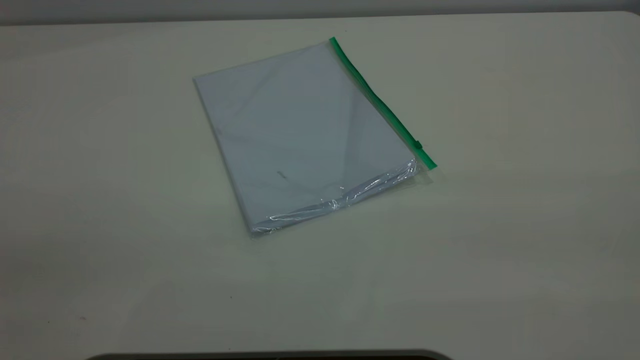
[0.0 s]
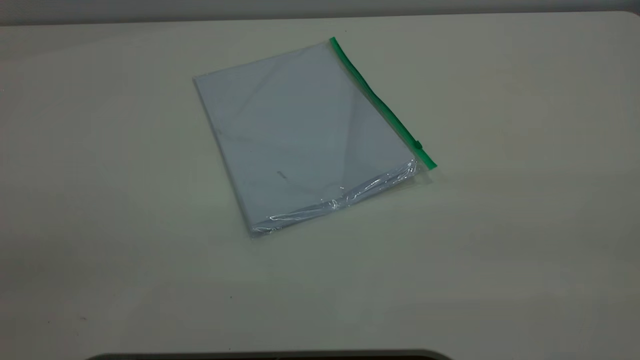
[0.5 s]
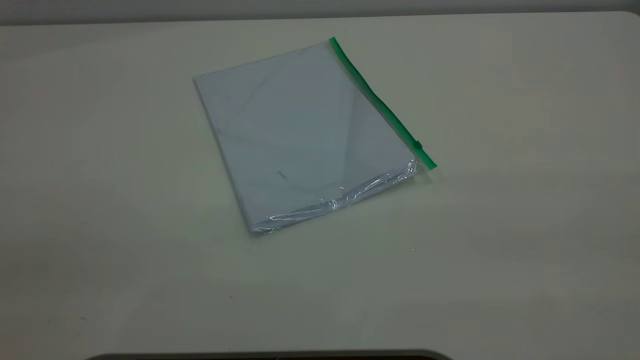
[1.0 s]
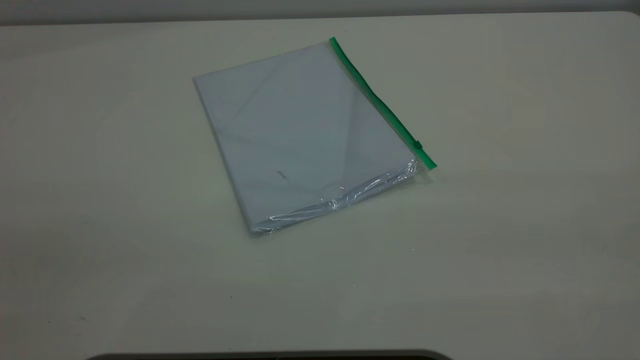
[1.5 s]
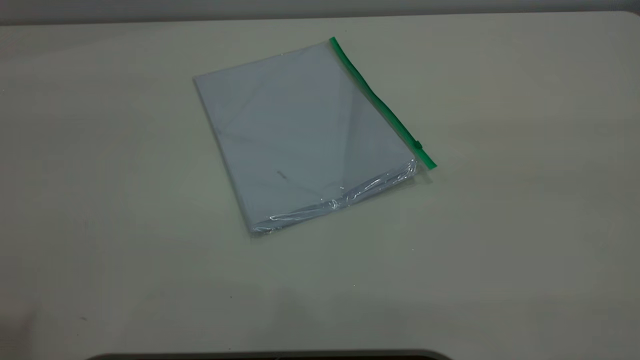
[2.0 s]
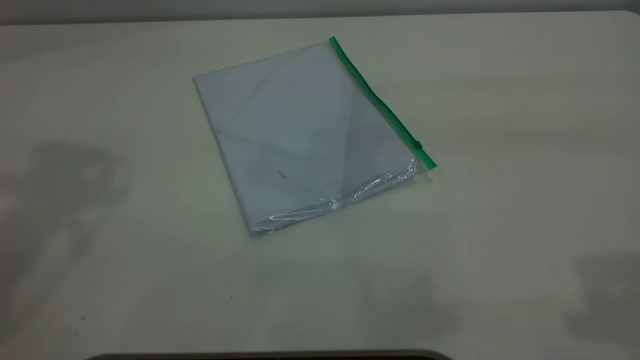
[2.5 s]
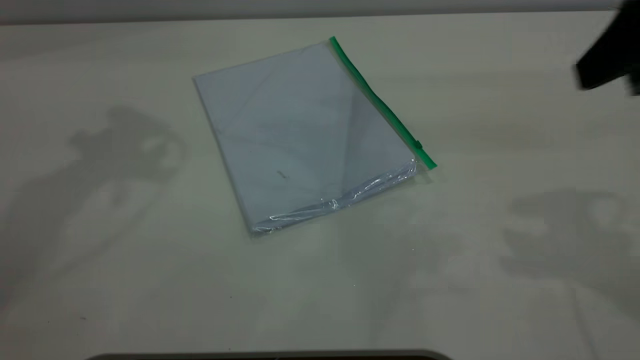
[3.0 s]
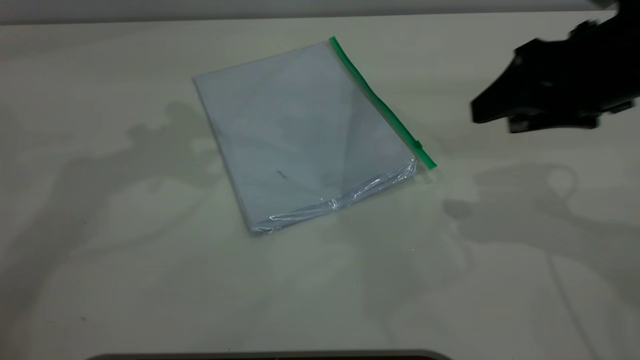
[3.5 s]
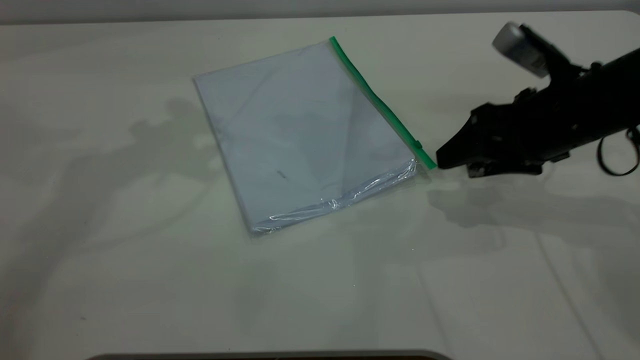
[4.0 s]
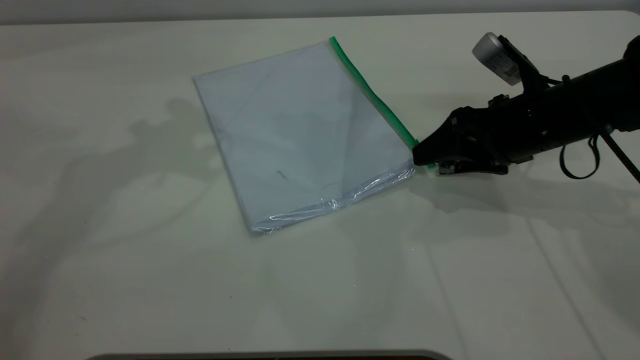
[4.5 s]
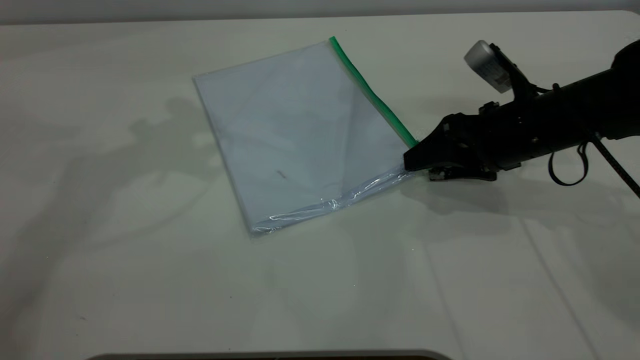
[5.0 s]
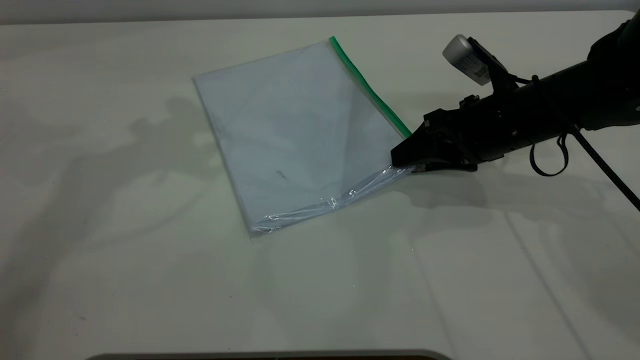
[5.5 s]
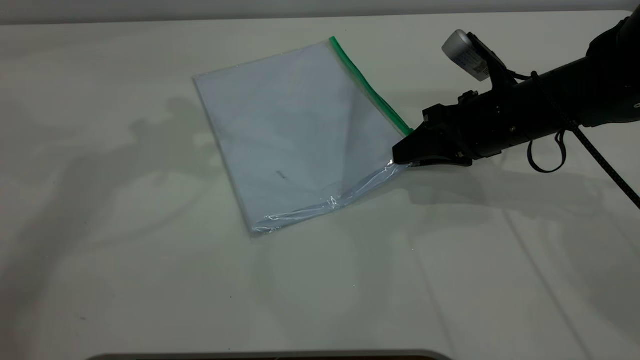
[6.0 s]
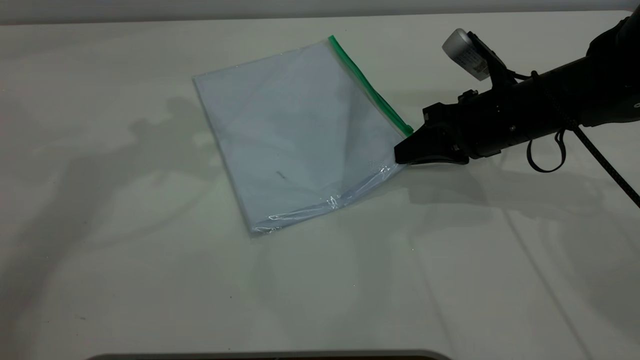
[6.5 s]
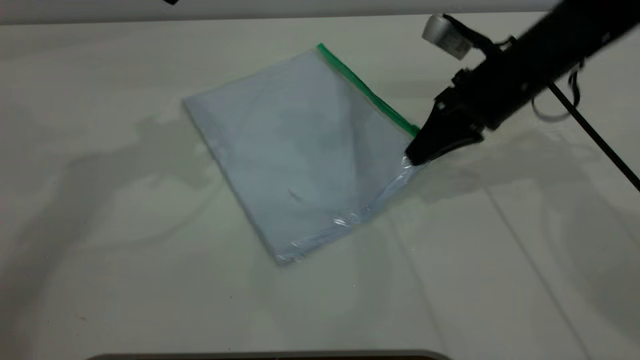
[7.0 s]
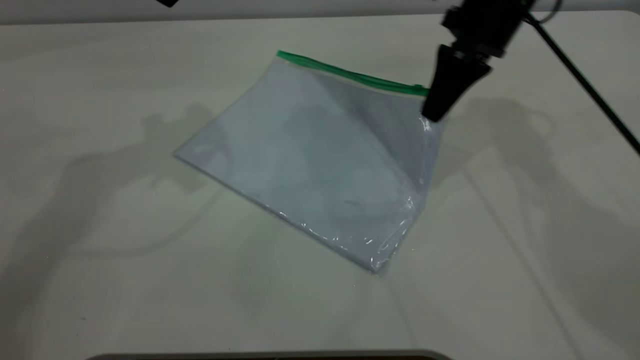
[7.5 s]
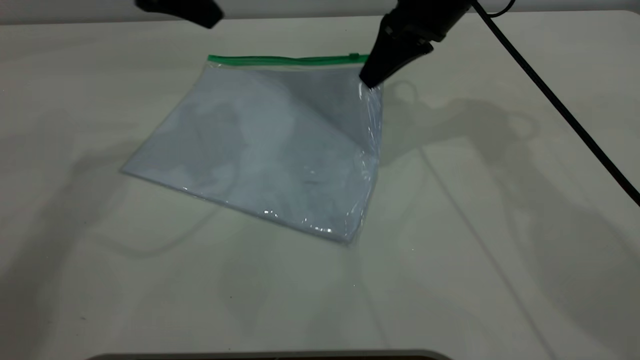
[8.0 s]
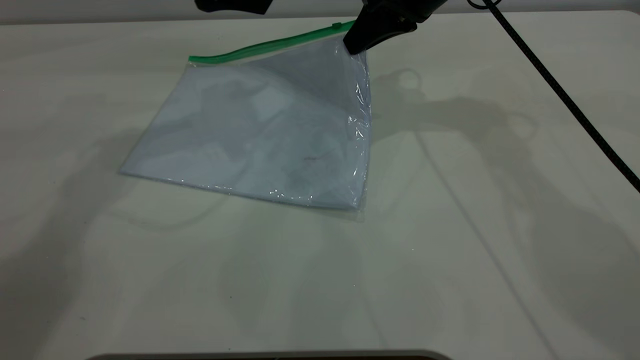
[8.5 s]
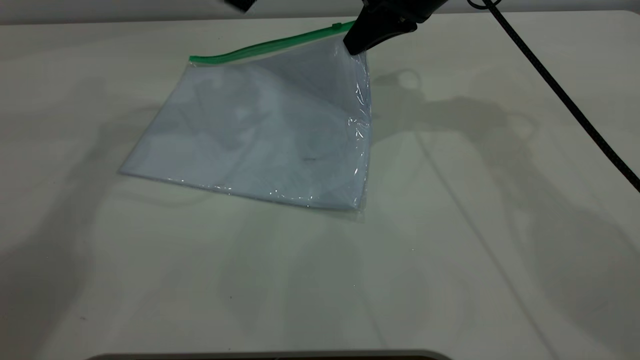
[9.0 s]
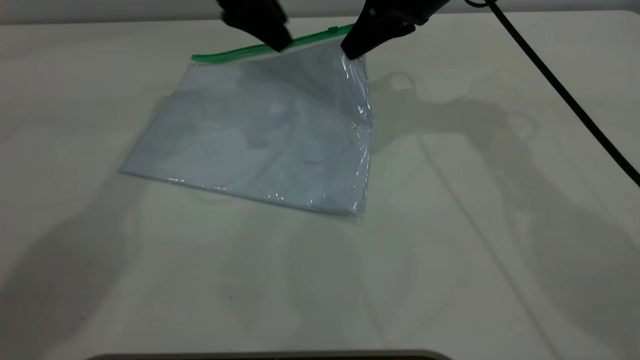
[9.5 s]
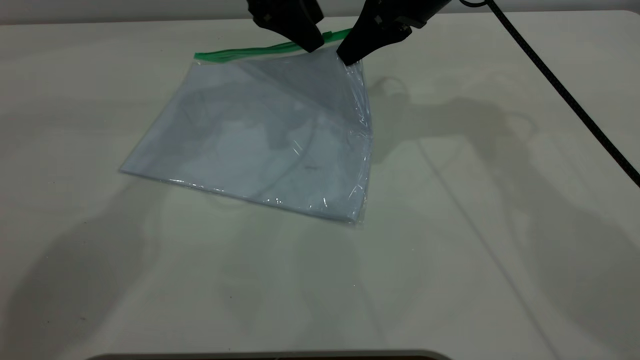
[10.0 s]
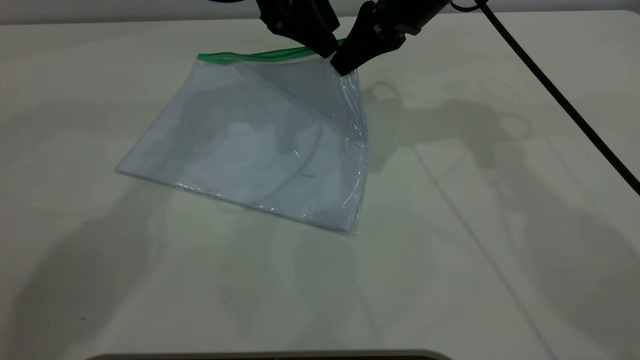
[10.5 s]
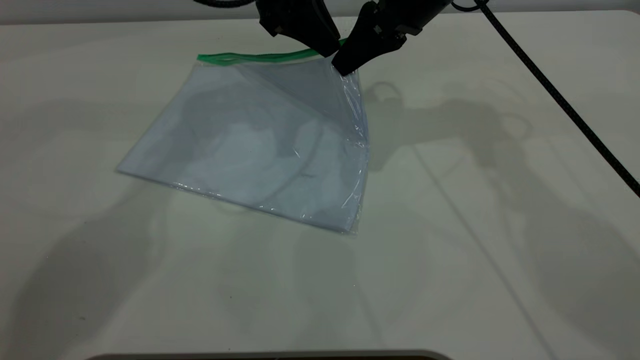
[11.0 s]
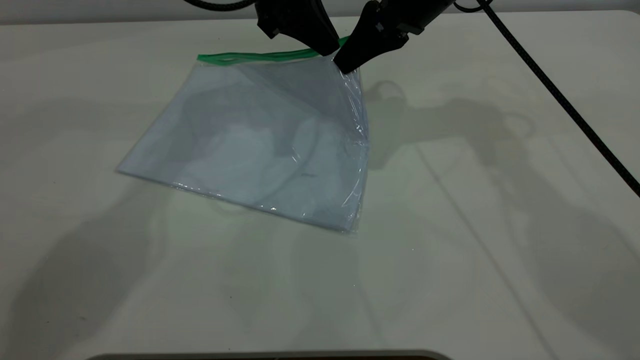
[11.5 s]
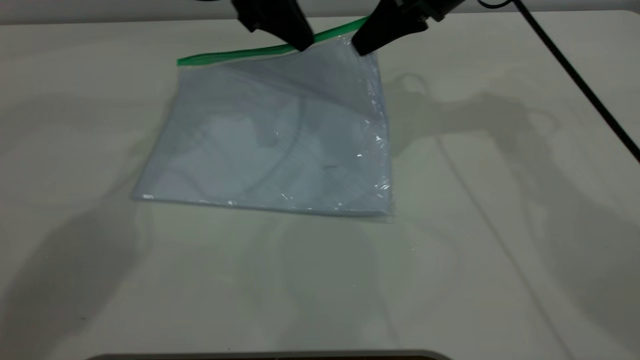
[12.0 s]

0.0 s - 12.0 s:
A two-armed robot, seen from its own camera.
Step, 0.0 s - 6.5 s: Pick up the transparent plastic bag with the right gripper.
2.0 s - 4.0 s: The right gripper travels downward and forward by roughly 40 cm.
4.0 s - 6.0 s: The right gripper ends up about 5 cm from where it was, and closes its fingers.
6.0 s - 8.0 s: The right gripper travels upward, forward and to the left by approximately 15 cm, and closes its fingers.
8.0 s - 10.0 s: The left gripper moves to the right and forward, some 15 cm.
10.0 s - 12.0 s: The left gripper closes up.

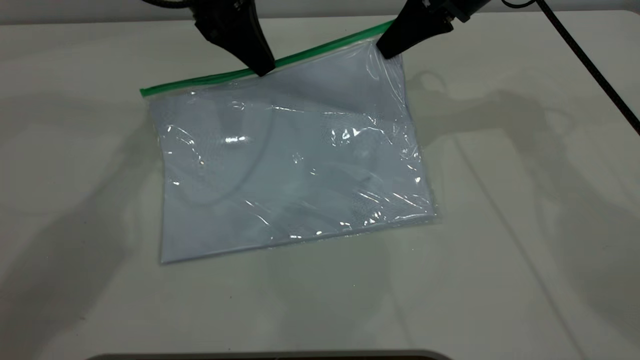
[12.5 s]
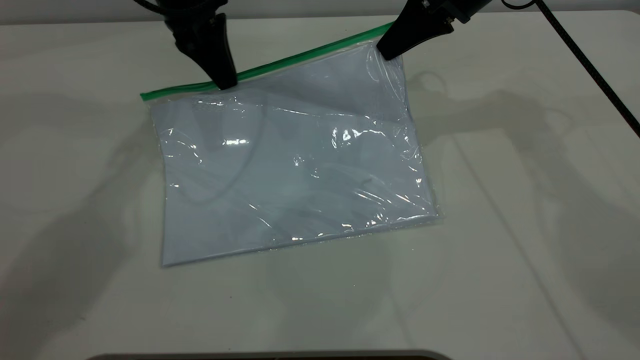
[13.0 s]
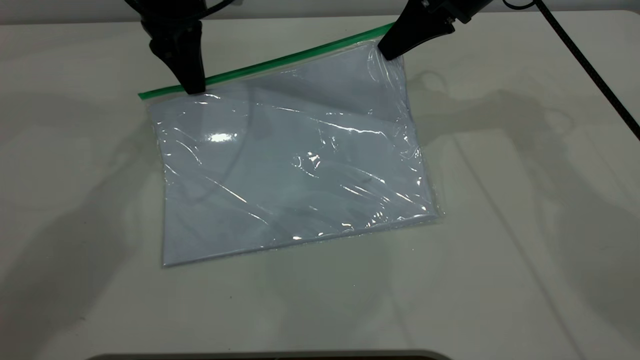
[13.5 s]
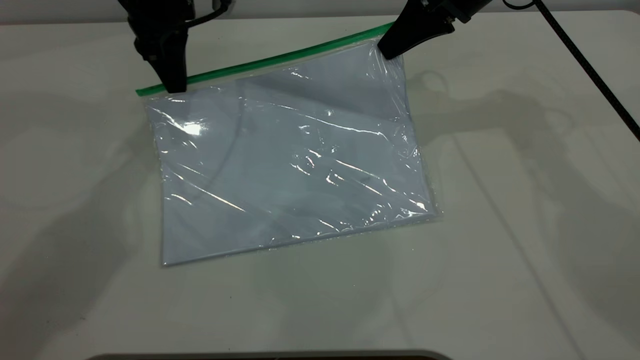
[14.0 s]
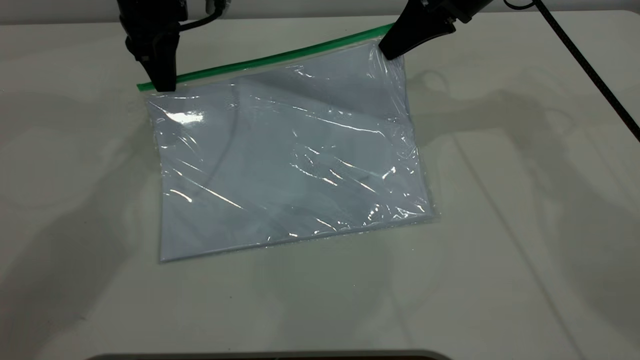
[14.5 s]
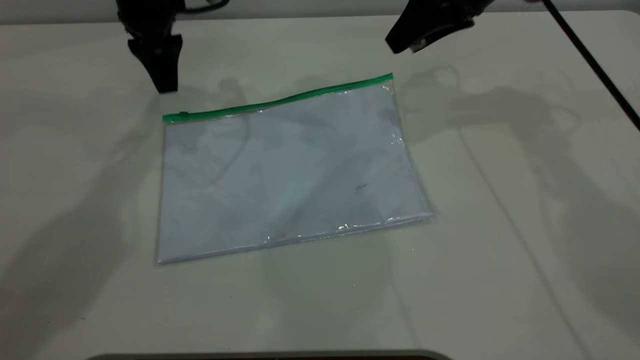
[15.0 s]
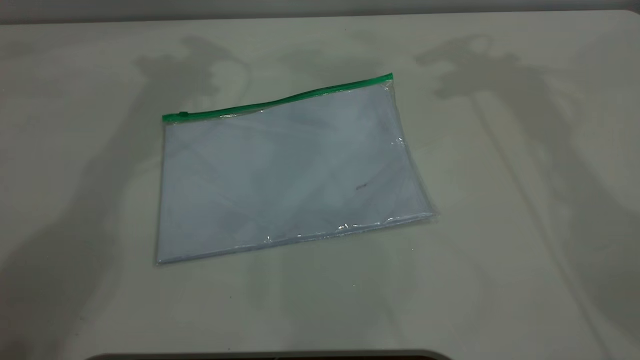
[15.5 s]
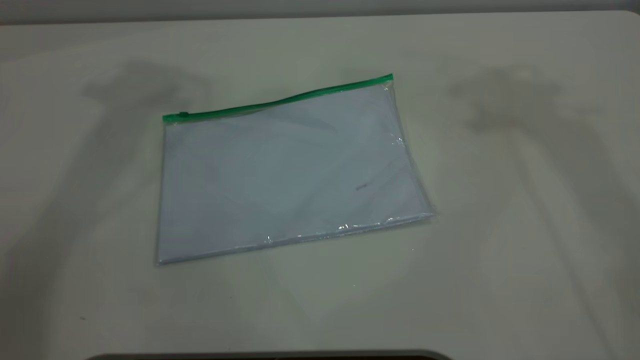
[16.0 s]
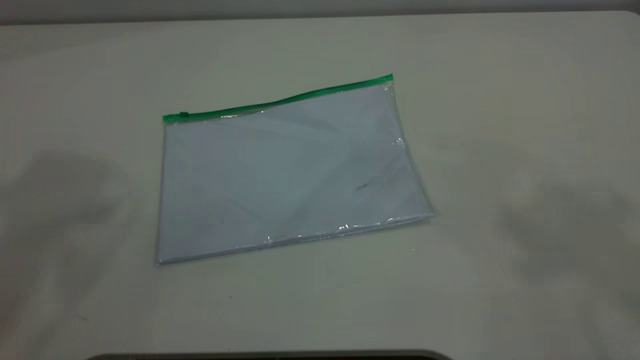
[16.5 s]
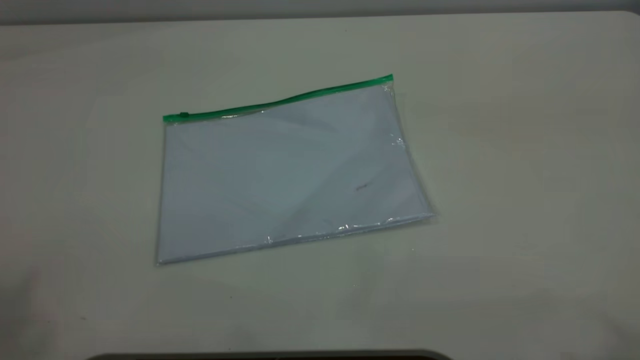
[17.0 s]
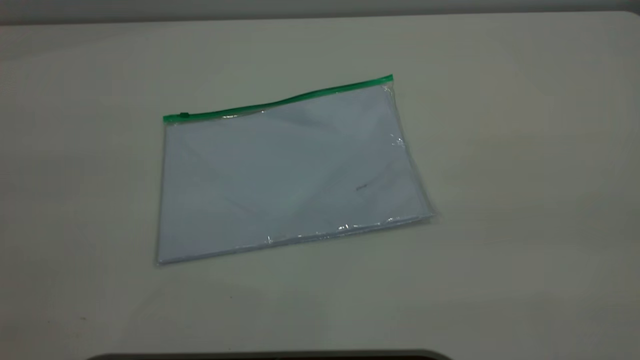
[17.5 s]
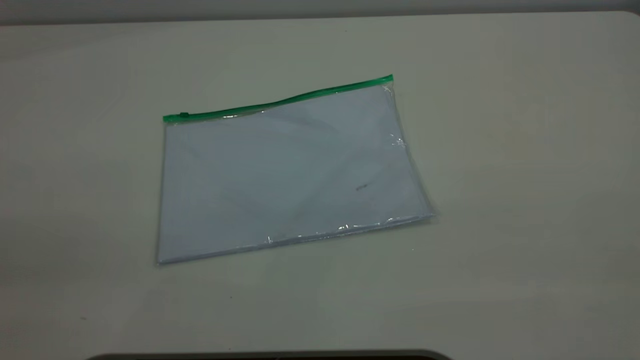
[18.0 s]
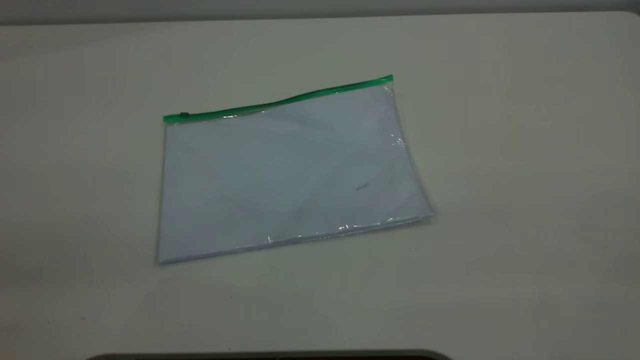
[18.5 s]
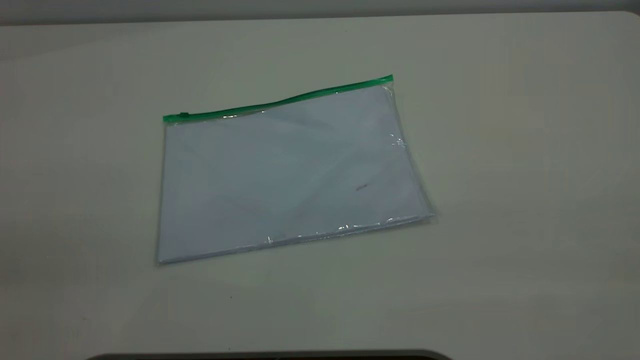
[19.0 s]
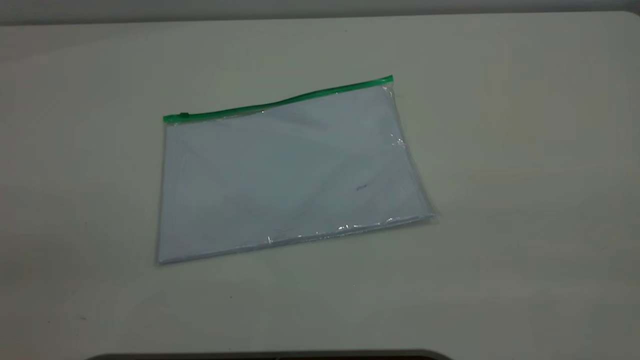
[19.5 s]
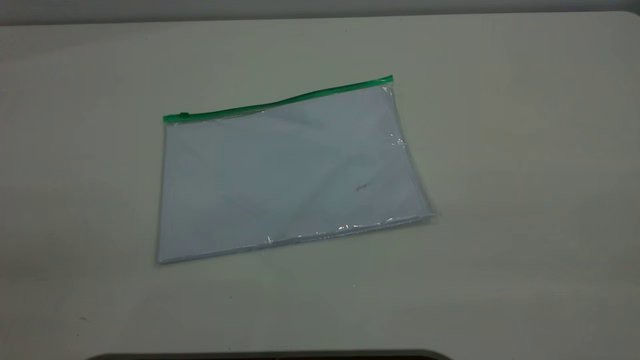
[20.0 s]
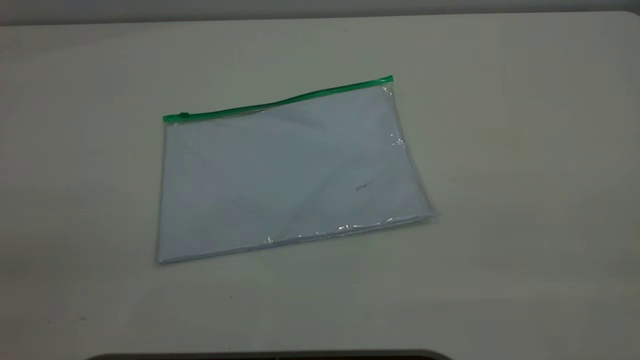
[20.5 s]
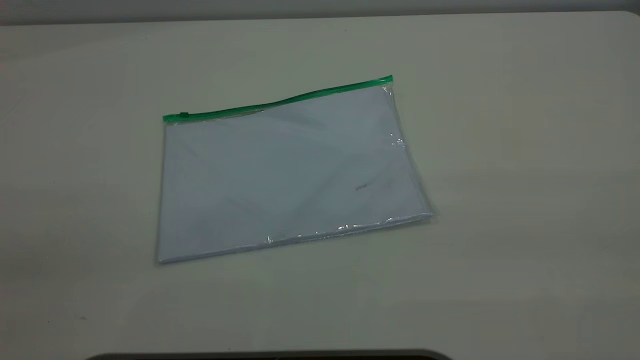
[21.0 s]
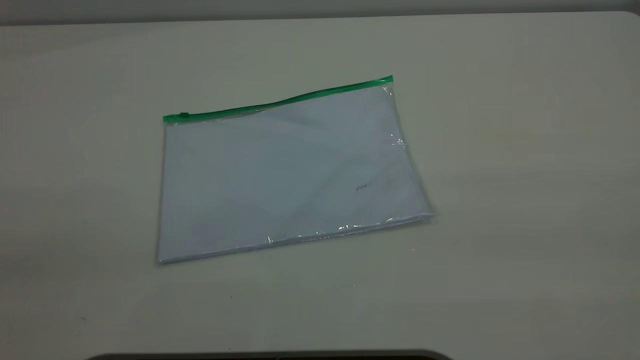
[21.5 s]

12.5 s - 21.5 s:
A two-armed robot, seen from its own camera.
Step, 12.5 s - 14.5 s: Pulling up the zipper on the transparent plastic bag with the left gripper to close it.
14.5 s - 17.0 s: The right gripper travels backward and upward by about 50 cm, and opens up. The left gripper heads upward and backward, covering some 50 cm, and opens up.
